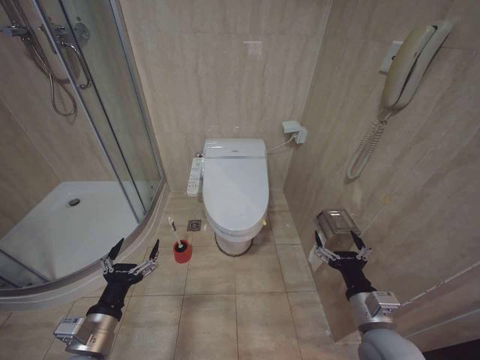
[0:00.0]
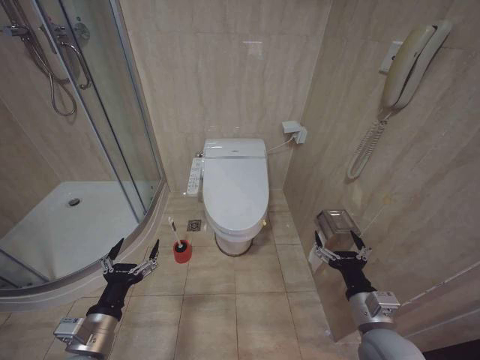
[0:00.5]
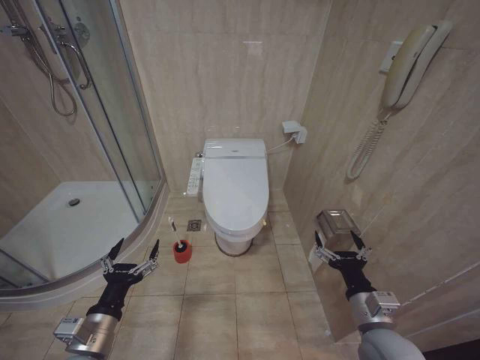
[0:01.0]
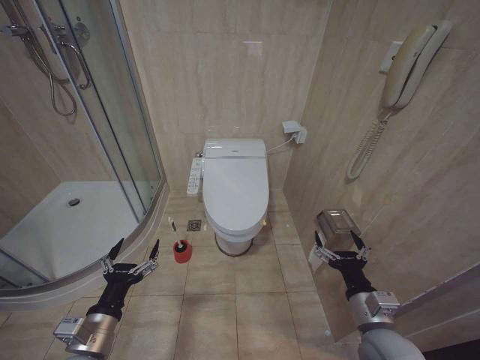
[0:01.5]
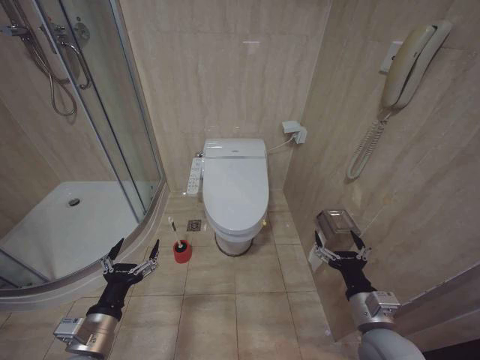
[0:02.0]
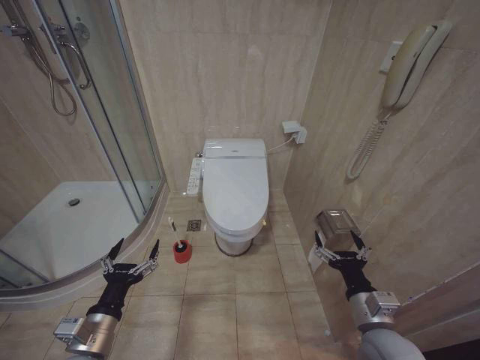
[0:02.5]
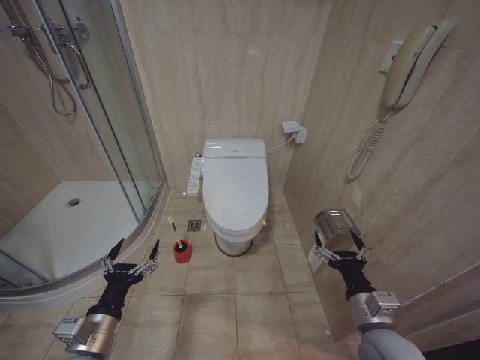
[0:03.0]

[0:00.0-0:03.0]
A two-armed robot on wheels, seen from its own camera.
Task of the whole recording: Open the toilet lid, clean the toilet bowl with a toilet brush, close the toilet lid, and flush.
0:00.0 to 0:03.0: Both grippers stay put.
